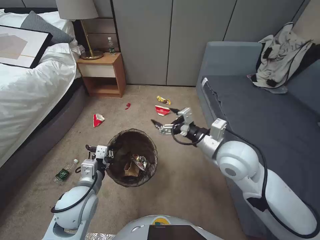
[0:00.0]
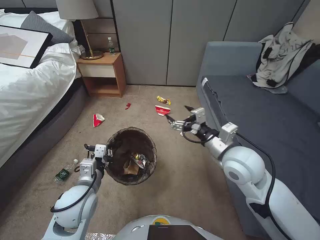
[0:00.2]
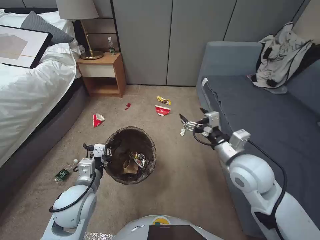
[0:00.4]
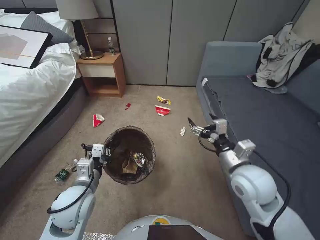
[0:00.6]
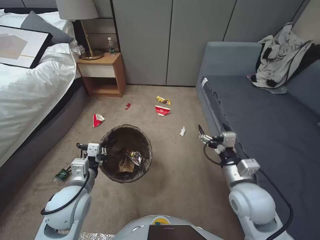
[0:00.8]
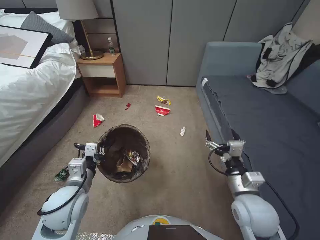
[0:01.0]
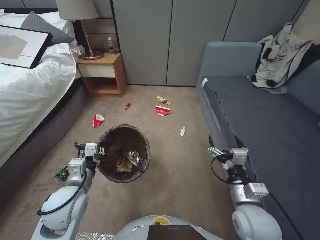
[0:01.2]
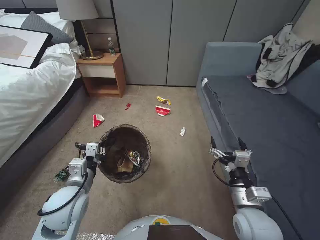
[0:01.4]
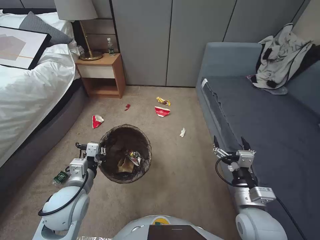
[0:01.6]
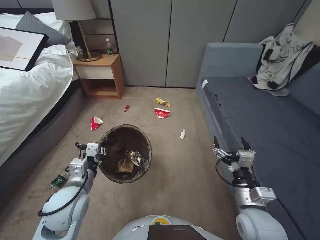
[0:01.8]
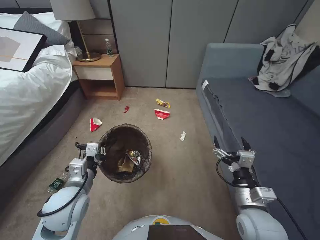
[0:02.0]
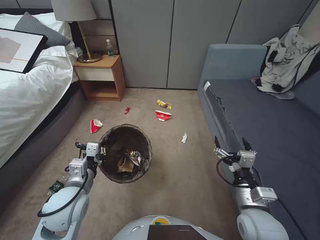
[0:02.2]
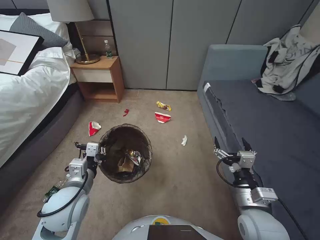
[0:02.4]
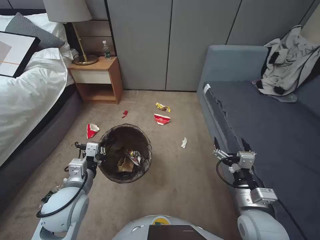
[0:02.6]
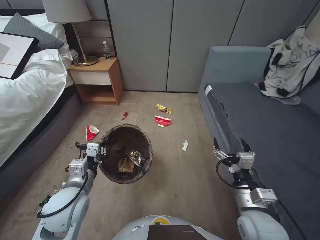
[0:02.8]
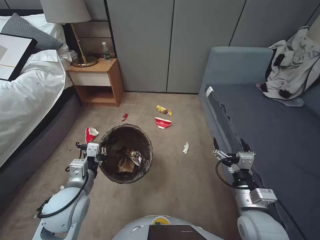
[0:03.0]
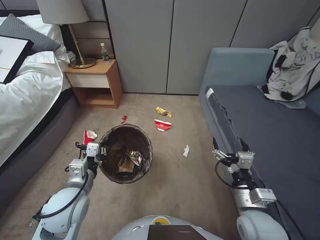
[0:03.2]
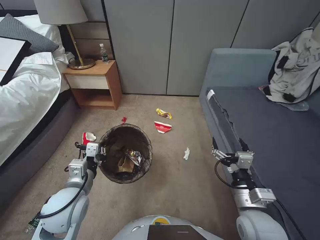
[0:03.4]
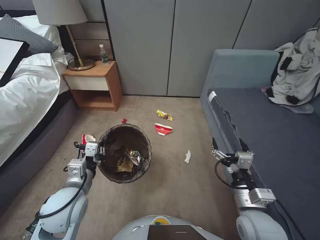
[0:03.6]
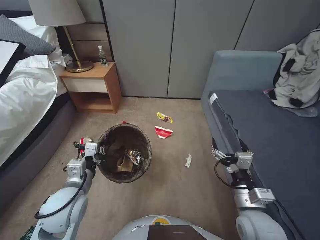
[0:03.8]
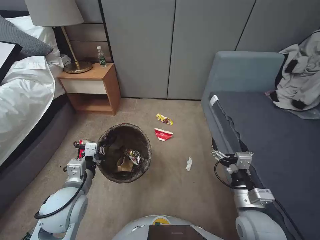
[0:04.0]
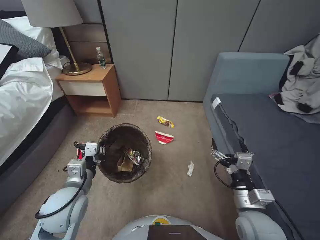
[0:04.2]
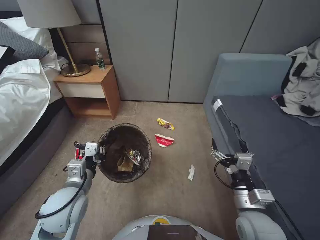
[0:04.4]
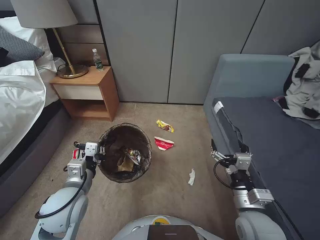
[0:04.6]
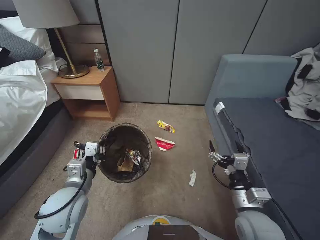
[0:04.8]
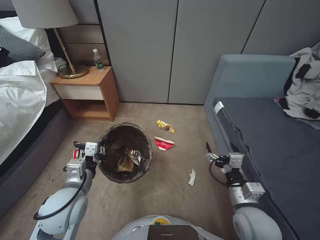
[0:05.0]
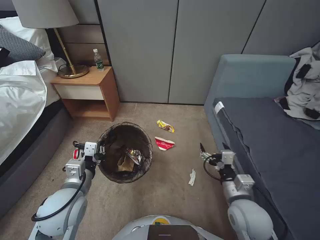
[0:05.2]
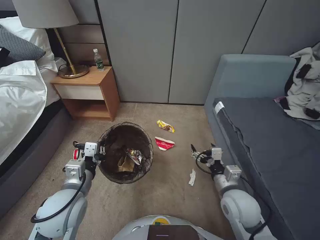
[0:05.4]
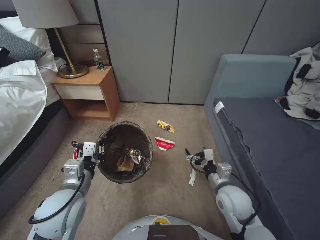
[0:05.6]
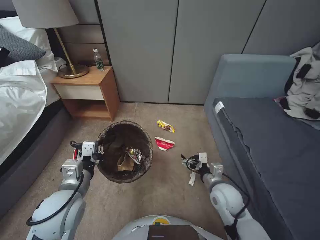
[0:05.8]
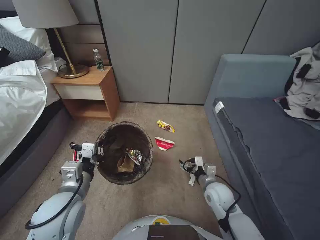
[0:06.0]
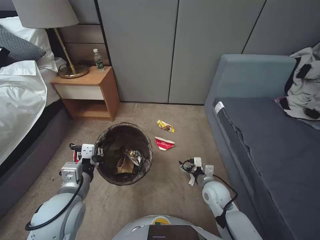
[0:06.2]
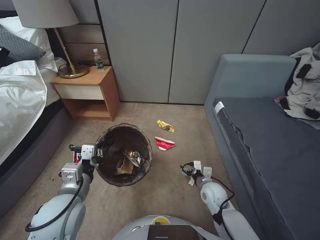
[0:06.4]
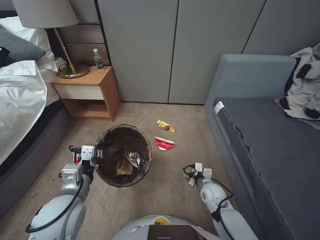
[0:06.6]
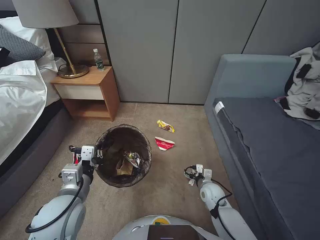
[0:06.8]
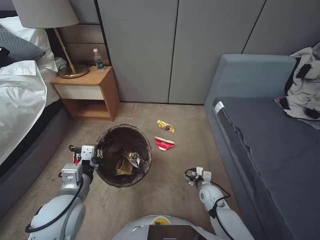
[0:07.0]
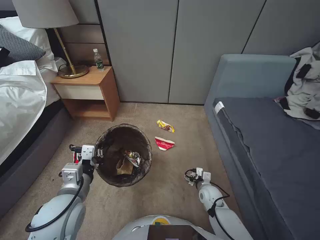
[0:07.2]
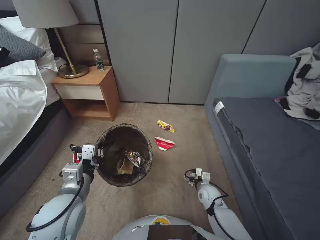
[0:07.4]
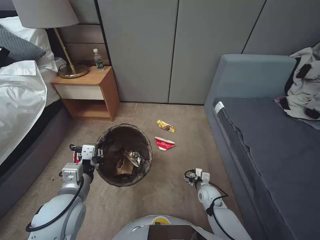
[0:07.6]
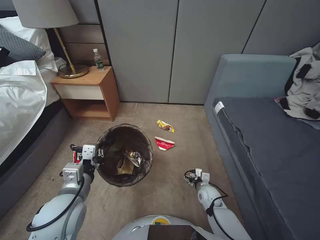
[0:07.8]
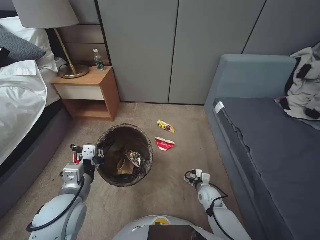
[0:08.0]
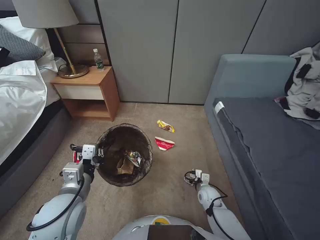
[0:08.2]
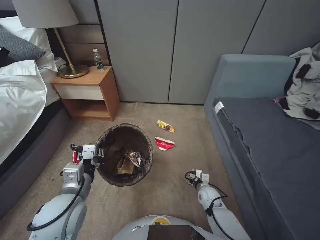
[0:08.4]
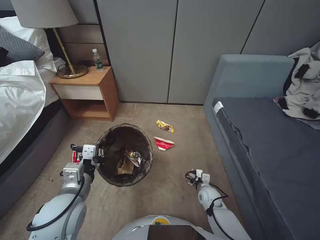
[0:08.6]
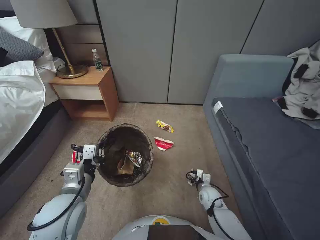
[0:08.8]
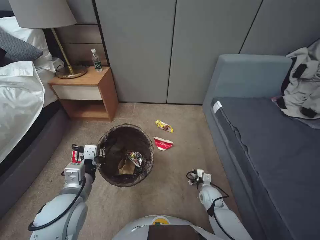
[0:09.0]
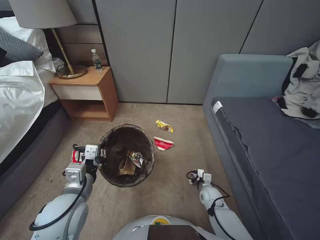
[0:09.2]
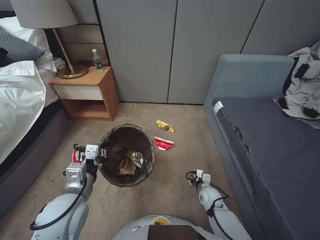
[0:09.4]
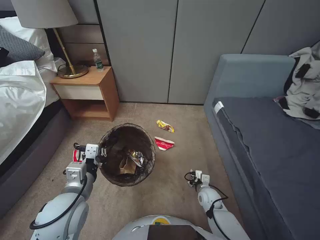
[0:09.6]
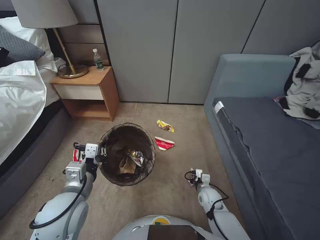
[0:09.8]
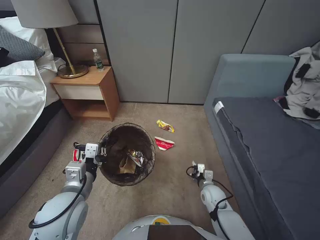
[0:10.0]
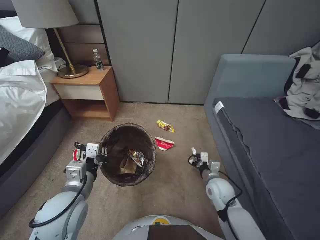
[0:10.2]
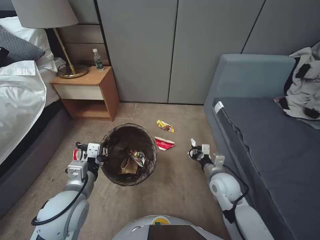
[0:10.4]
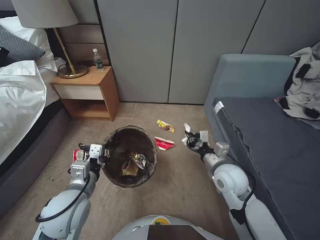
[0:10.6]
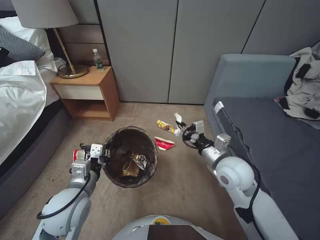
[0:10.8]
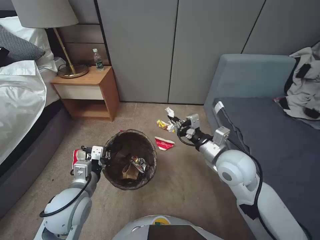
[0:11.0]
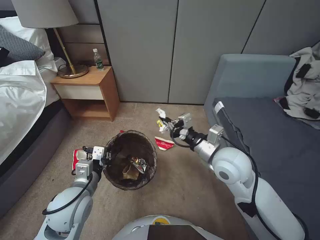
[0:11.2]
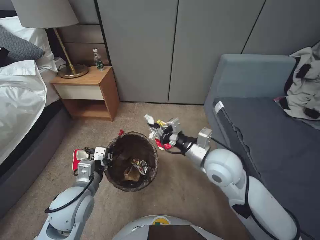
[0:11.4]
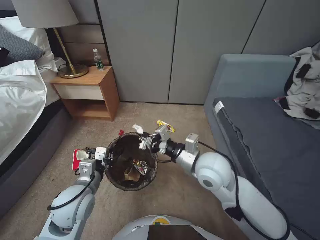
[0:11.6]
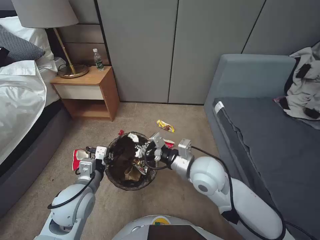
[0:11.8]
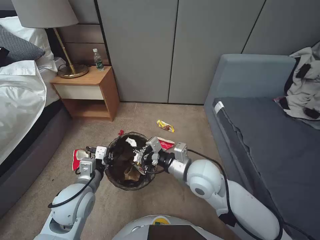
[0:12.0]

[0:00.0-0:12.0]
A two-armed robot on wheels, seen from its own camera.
Task of the whole recording: Pick up the trash bin, then pick up the garbage from the floor and place it into the trash bin.
0:00.0 to 0:01.6: The right gripper heads backward, downward and to the right, covering about 20 cm.
0:01.6 to 0:03.0: Both grippers stay put.
0:04.4 to 0:06.0: The right gripper moves forward and downward, roughly 15 cm.
0:06.0 to 0:07.6: The right gripper moves downward, about 15 cm.
0:07.6 to 0:09.0: The right gripper closes.
0:09.0 to 0:10.4: The right gripper moves upward, roughly 20 cm, and closes up.
0:10.4 to 0:12.0: The right gripper is displaced upward and to the left by approximately 20 cm.

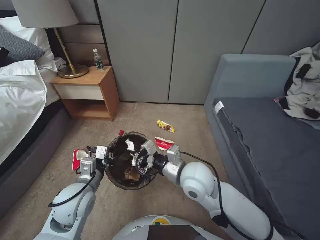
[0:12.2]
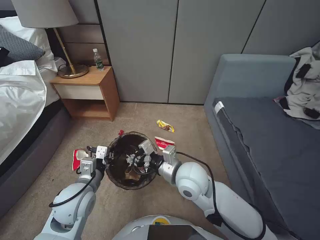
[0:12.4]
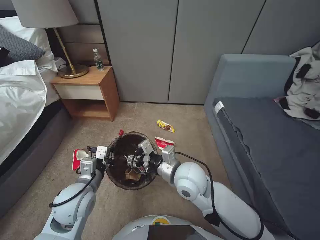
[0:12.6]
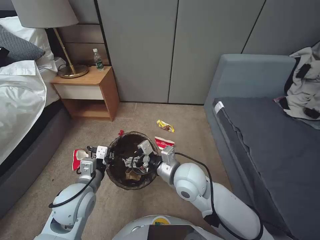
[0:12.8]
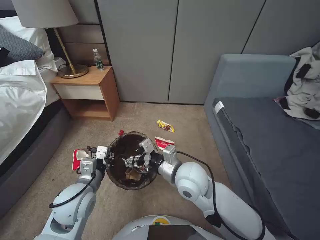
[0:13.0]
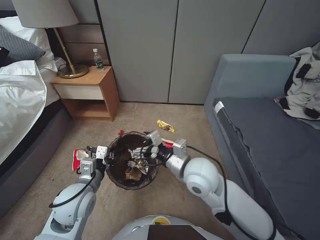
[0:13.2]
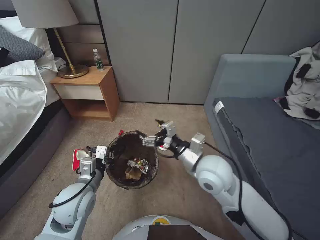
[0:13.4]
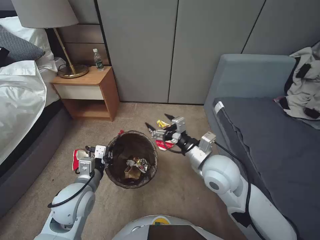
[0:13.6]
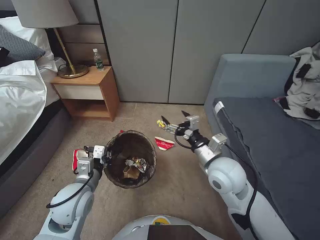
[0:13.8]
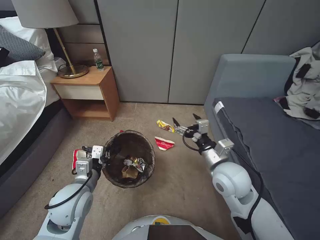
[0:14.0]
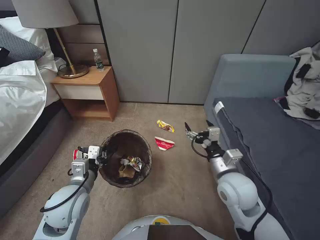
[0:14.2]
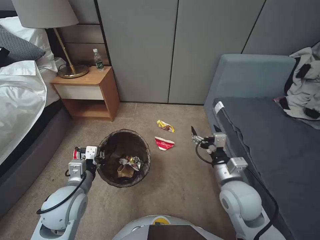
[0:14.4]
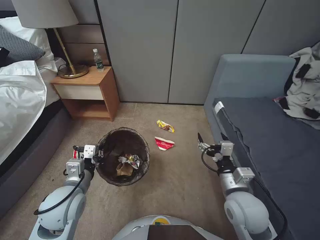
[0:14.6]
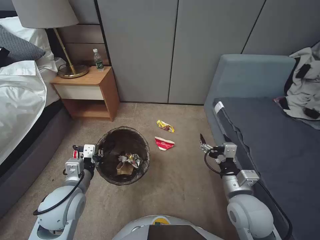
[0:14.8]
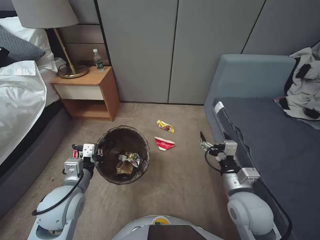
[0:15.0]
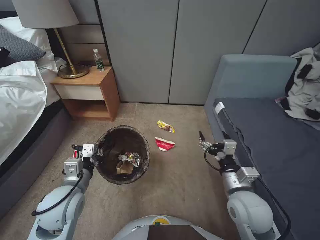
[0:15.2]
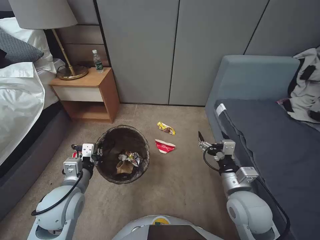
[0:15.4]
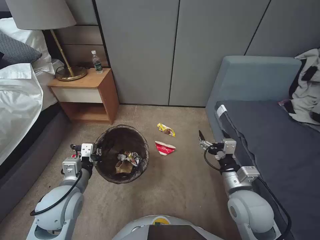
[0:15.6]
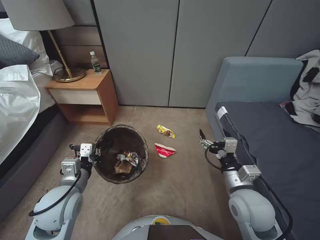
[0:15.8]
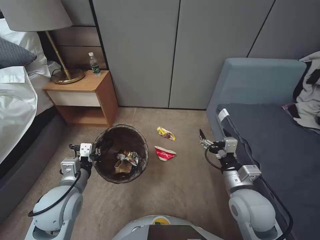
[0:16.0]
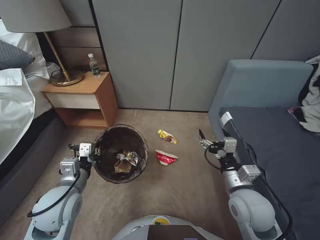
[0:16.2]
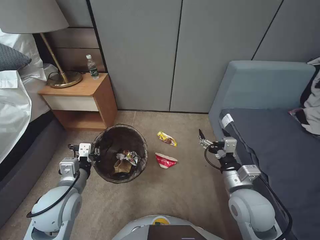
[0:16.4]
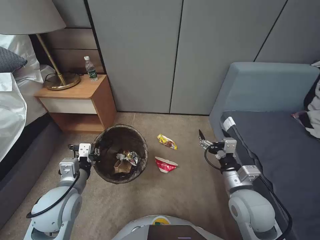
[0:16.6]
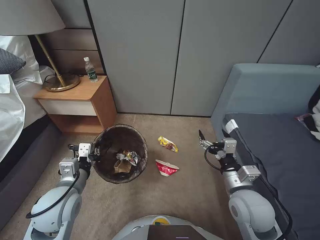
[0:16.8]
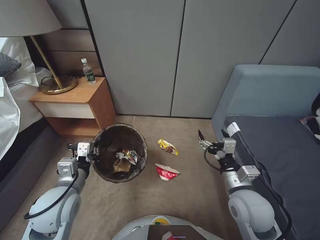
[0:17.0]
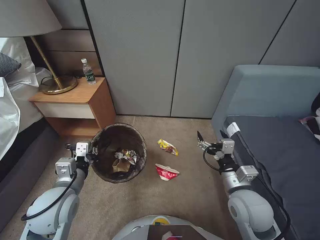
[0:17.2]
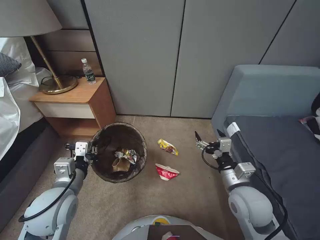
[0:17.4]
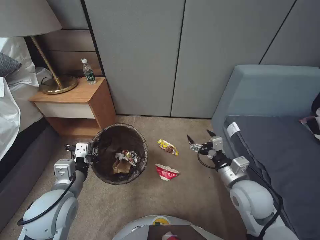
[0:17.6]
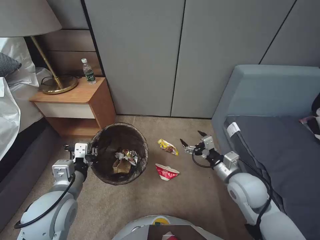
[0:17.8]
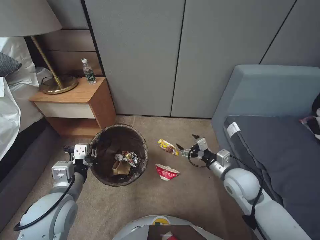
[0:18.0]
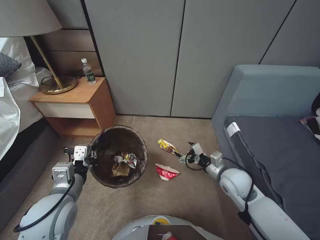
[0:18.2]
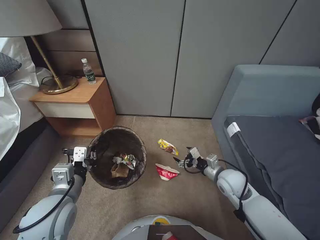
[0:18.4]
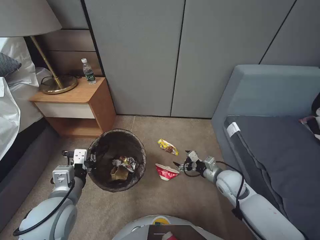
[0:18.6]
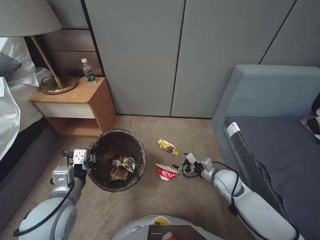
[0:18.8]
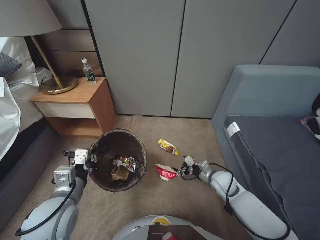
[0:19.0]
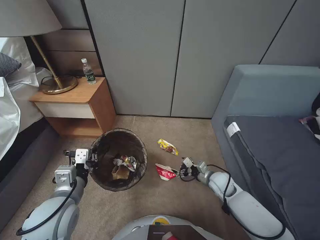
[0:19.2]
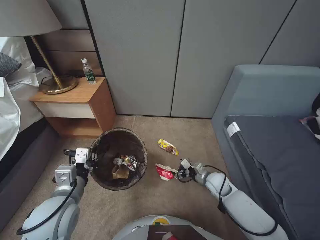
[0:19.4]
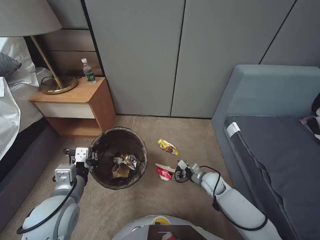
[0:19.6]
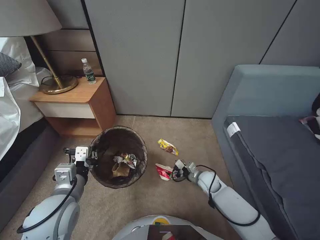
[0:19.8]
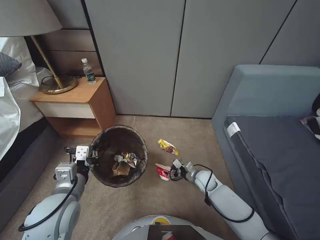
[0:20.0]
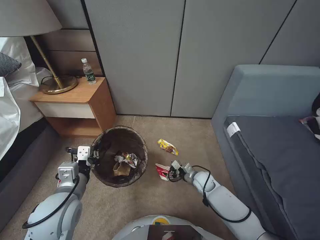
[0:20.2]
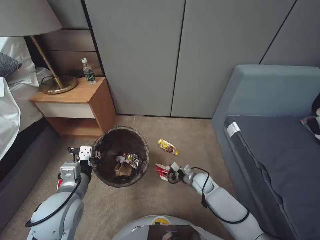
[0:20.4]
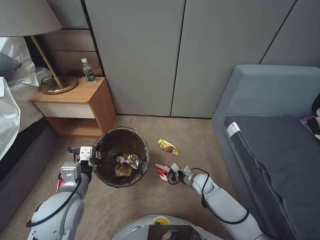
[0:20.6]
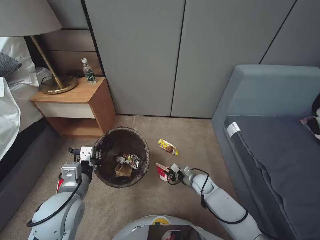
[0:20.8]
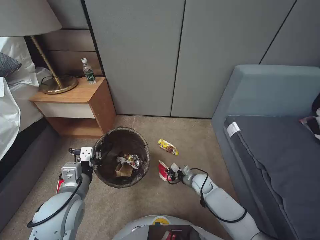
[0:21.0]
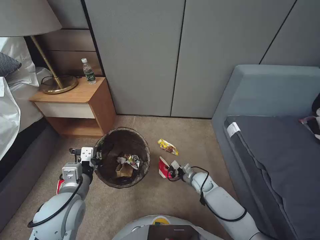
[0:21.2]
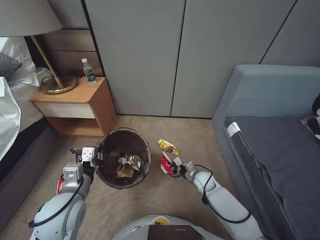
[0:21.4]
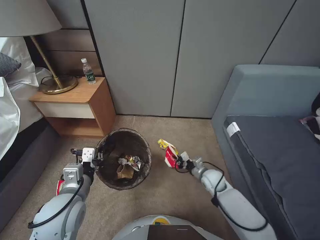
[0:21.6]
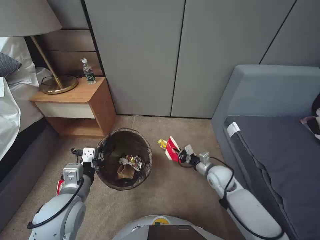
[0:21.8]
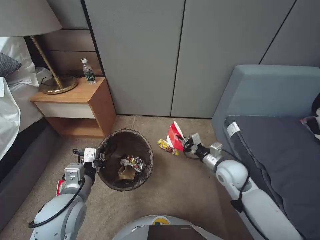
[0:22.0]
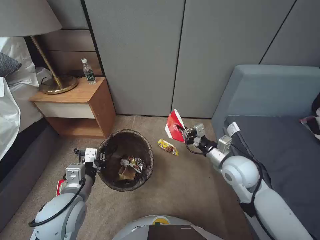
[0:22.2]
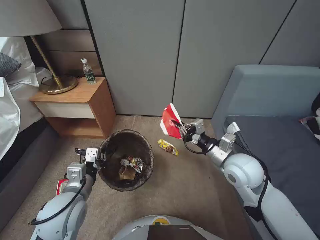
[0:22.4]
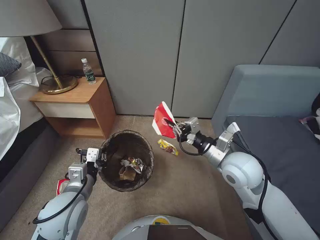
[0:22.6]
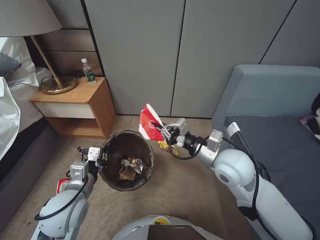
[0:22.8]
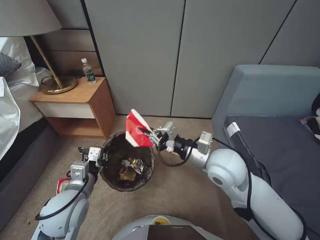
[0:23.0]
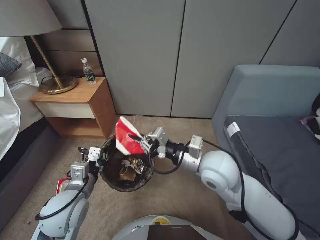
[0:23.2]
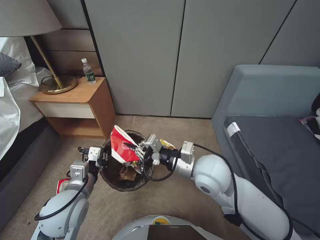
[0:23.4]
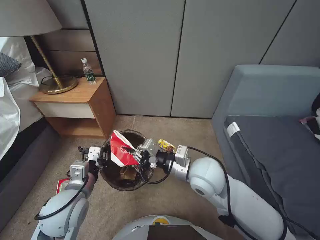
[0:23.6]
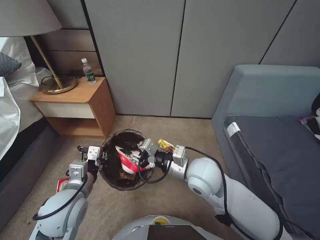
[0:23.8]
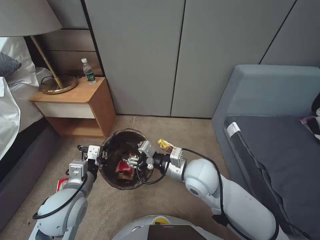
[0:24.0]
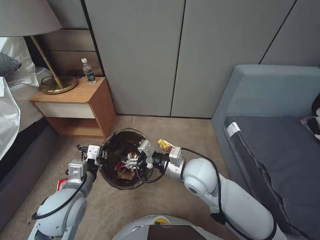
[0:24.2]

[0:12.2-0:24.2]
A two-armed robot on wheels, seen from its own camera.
Task of the whole recording: Pick up the trash bin, then pick up the garbage from the floor and place it into the trash bin.
0:12.2 to 0:13.8: The right gripper shifts some 5 cm to the right, and opens.
0:13.8 to 0:15.2: The right gripper travels backward, downward and to the right by approximately 10 cm.
0:16.6 to 0:18.2: The right gripper shifts approximately 10 cm forward.
0:18.2 to 0:19.8: The right gripper moves downward, about 15 cm.
0:19.8 to 0:21.2: The right gripper ends up about 5 cm from where it was, and closes its fingers.
0:21.2 to 0:22.6: The right gripper heads upward, covering approximately 35 cm.
0:22.6 to 0:24.2: The right gripper goes approximately 10 cm to the left, and opens up.
